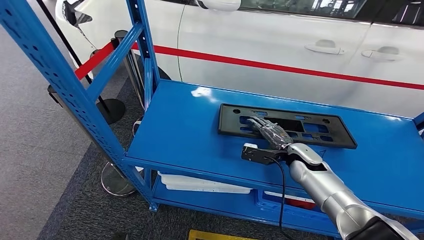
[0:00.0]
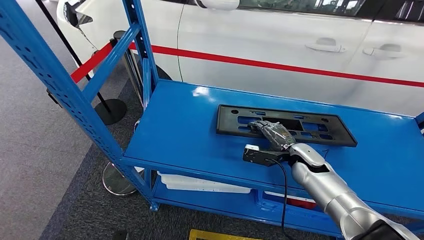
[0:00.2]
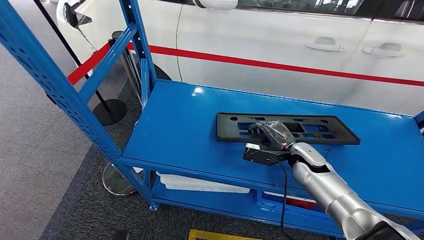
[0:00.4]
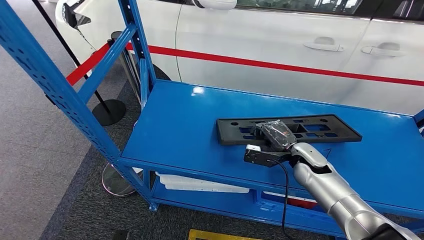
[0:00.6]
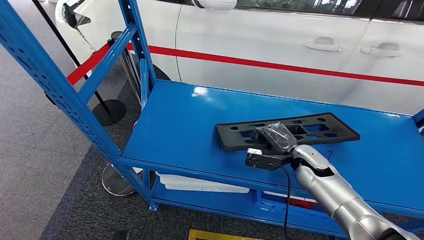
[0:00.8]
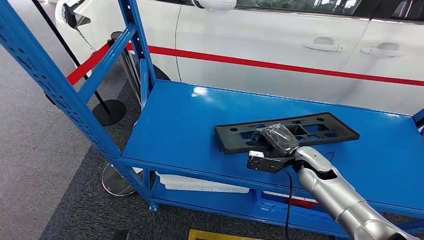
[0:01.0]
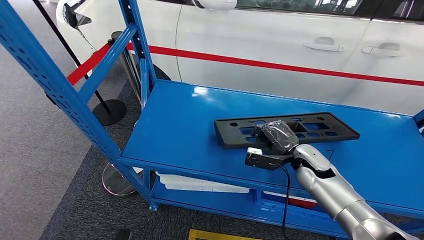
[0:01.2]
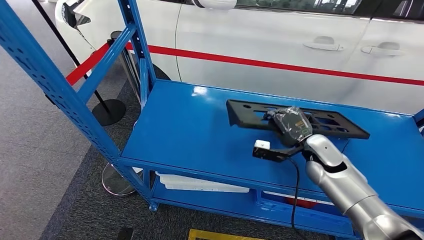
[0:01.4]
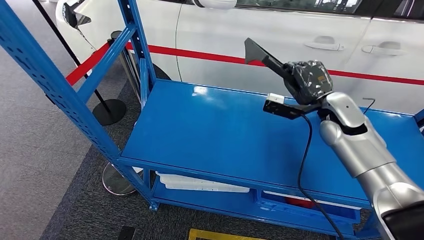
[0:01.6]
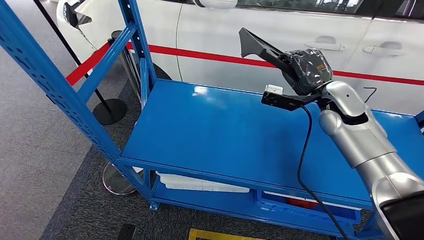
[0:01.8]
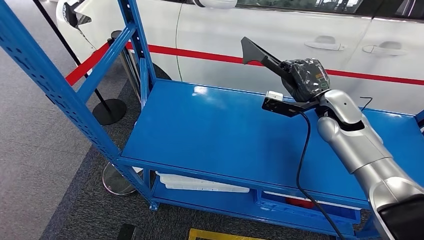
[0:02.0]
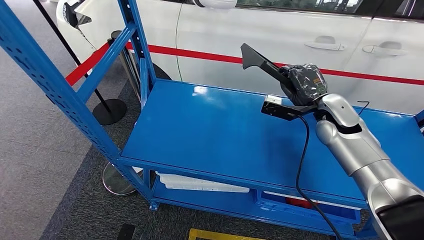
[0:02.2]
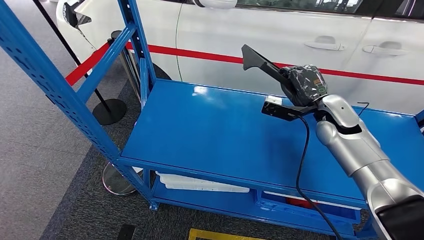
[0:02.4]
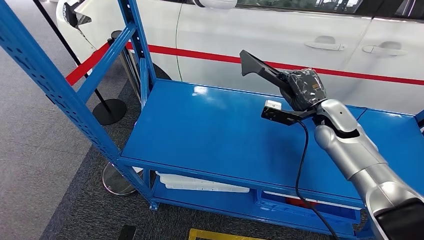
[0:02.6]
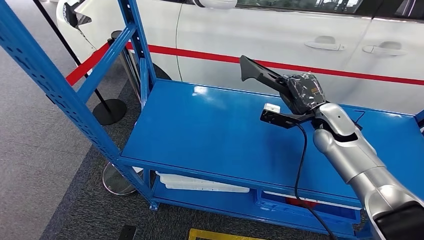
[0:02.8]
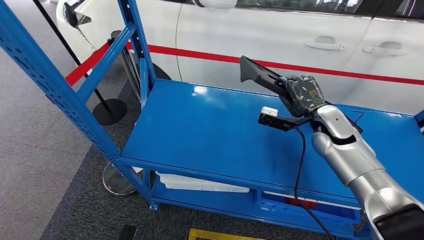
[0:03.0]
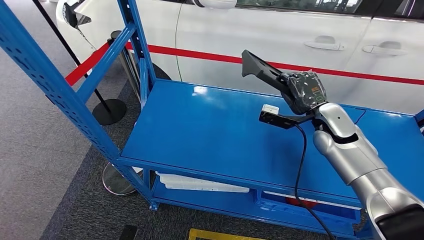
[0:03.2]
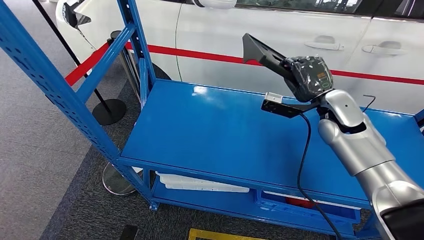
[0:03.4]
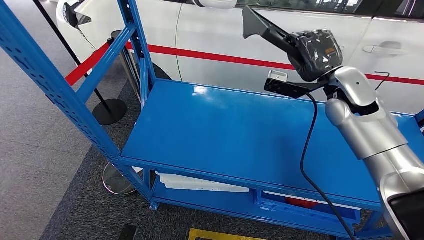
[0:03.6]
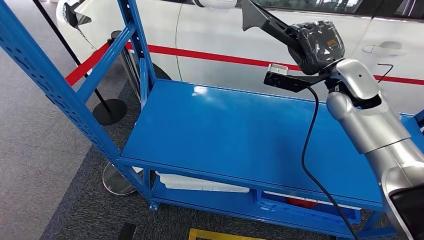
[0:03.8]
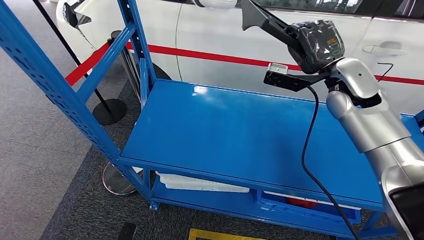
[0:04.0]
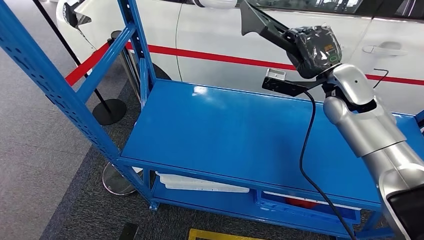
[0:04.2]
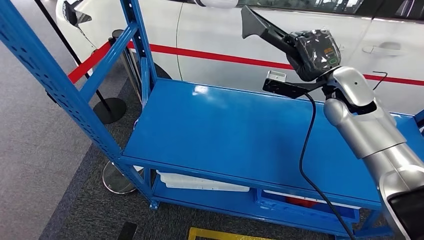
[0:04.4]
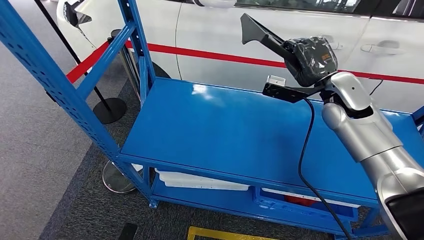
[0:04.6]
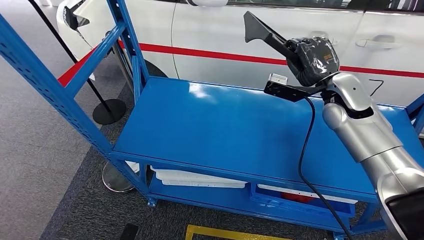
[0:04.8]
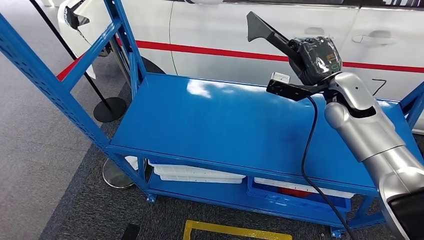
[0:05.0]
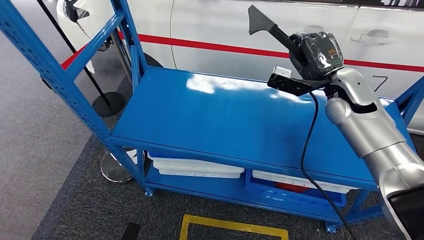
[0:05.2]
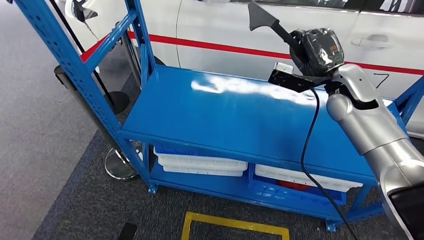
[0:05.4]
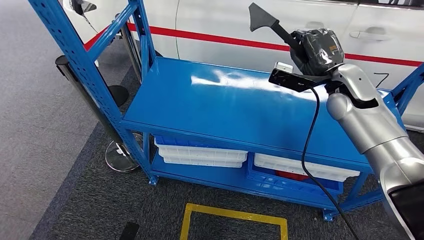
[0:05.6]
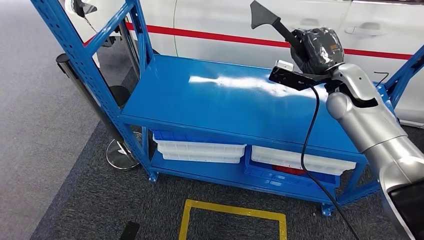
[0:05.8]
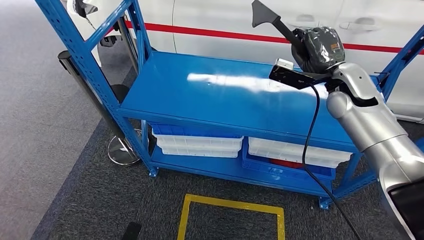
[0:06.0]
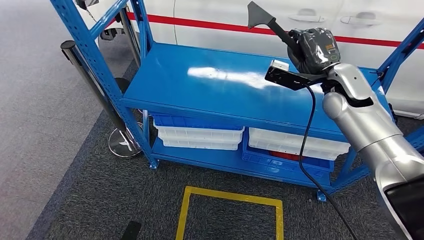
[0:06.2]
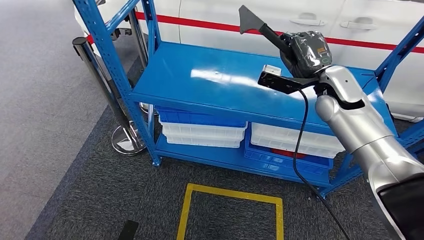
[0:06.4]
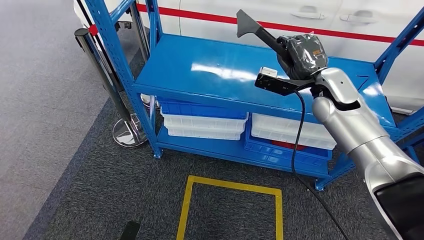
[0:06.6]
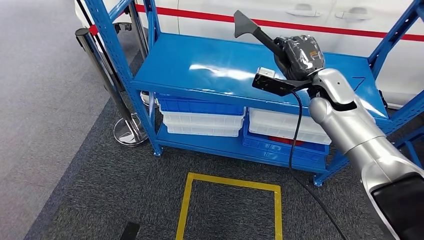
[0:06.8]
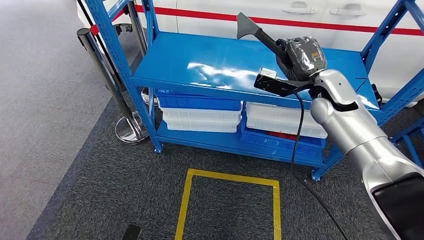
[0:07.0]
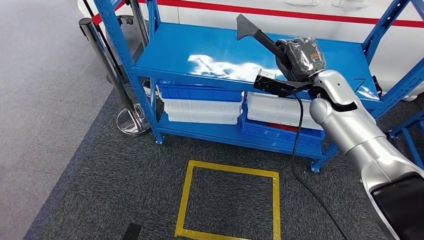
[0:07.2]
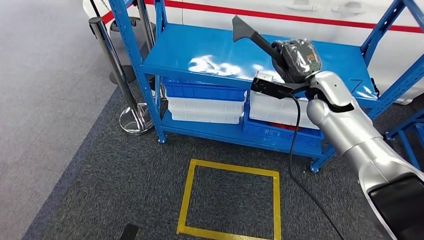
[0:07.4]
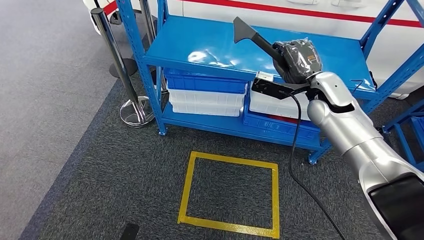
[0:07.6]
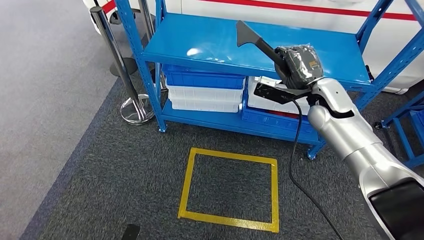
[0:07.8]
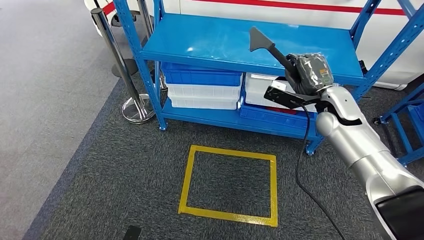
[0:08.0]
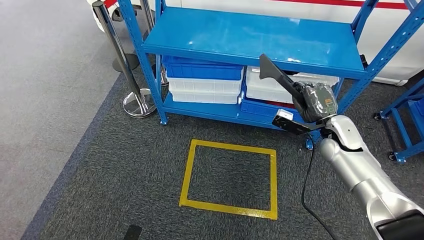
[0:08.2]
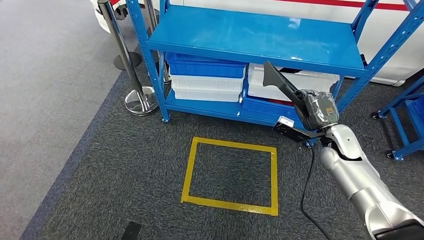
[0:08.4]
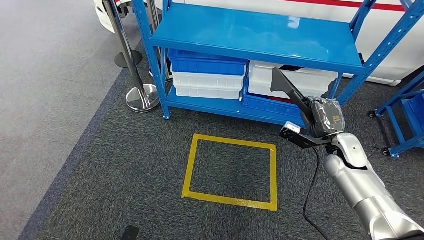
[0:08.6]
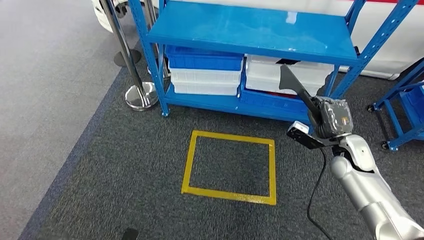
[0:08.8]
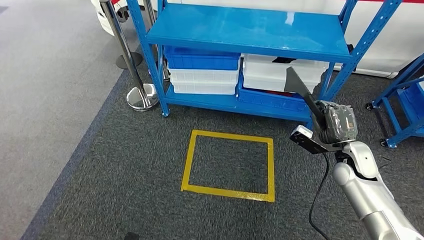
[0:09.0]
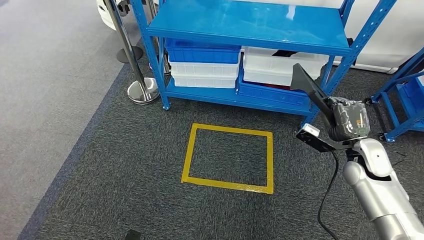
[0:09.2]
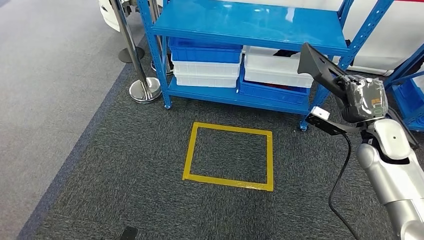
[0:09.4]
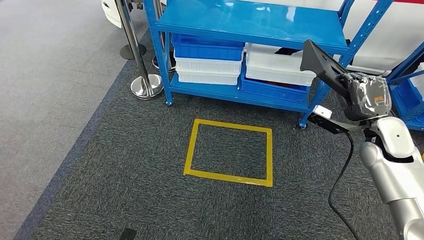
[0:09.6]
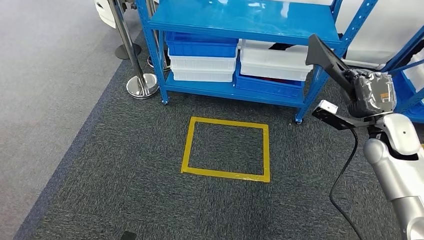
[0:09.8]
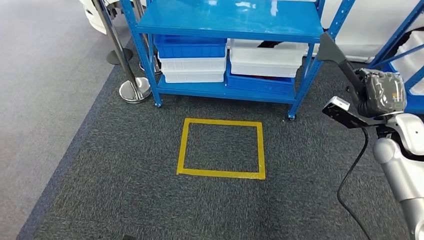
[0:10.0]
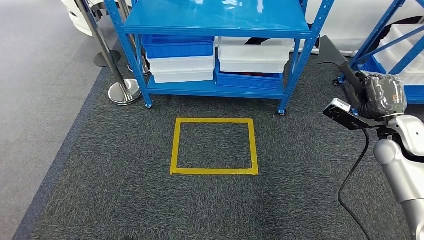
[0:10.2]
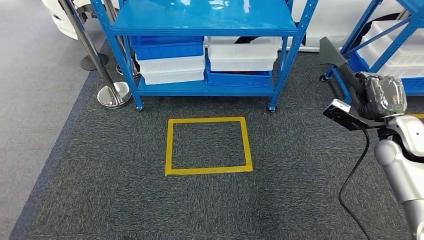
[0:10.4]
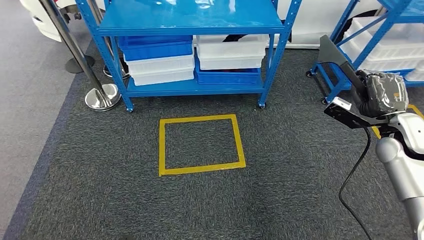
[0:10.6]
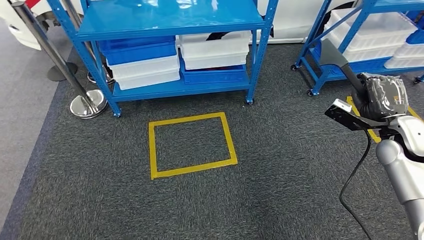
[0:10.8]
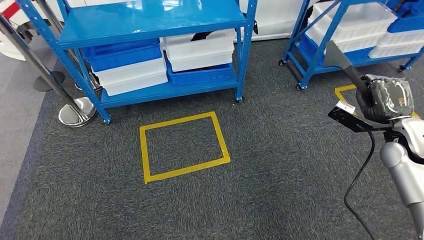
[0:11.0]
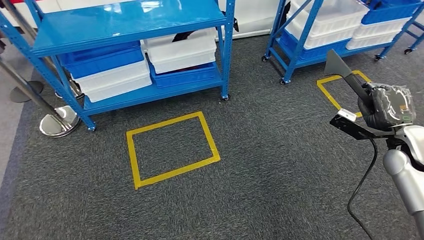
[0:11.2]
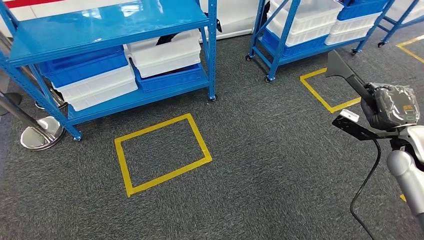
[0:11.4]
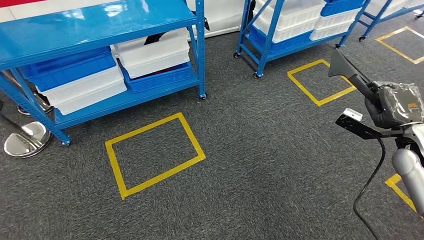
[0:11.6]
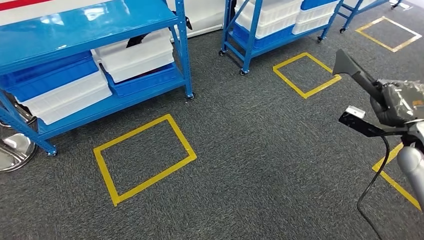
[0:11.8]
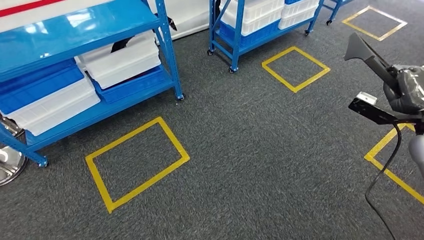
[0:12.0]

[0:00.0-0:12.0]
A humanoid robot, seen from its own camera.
Step, 0:00.0 to 0:02.0: Pick up the large material from the shelf.
0:01.6 to 0:03.0: The hands move only a little.

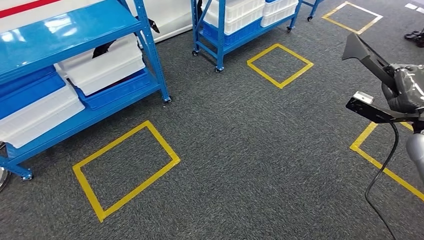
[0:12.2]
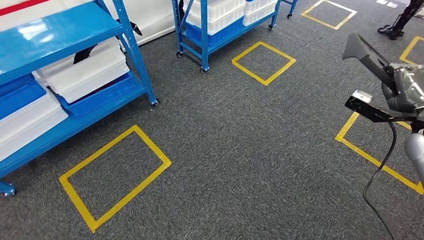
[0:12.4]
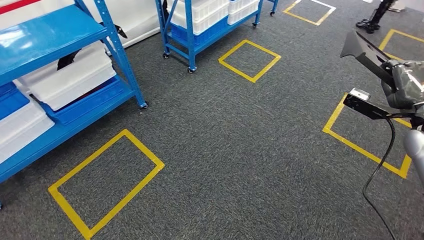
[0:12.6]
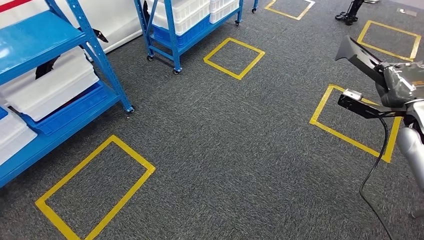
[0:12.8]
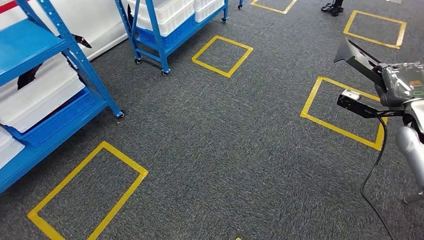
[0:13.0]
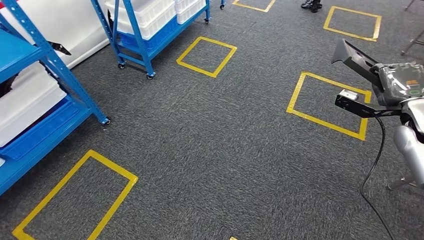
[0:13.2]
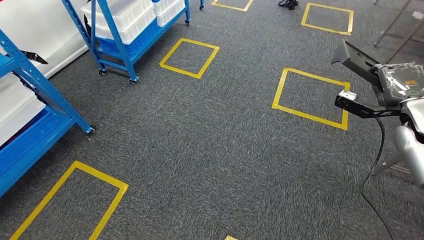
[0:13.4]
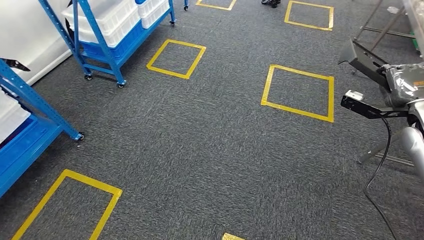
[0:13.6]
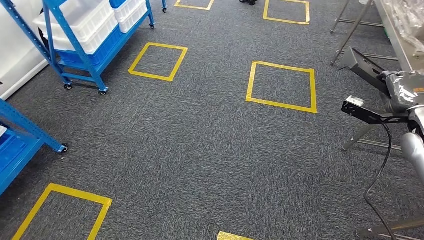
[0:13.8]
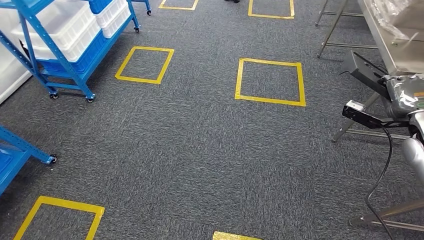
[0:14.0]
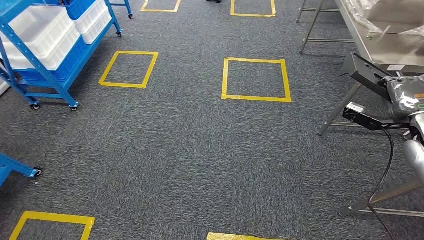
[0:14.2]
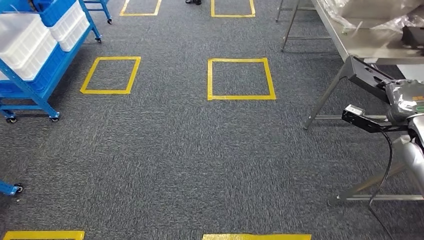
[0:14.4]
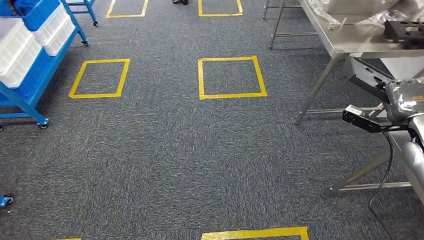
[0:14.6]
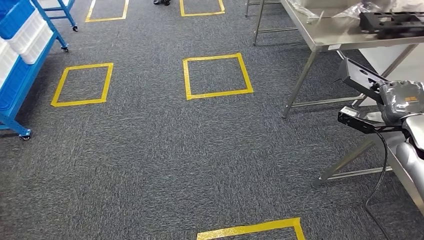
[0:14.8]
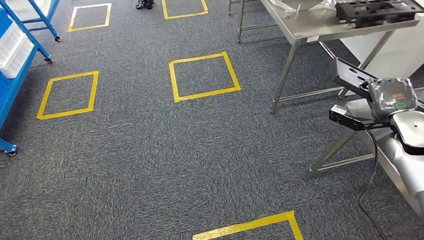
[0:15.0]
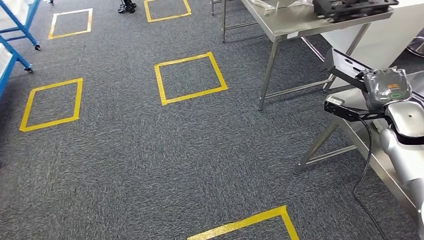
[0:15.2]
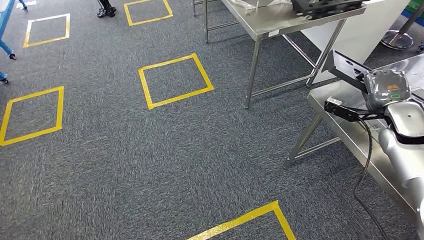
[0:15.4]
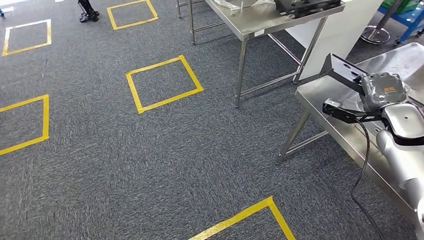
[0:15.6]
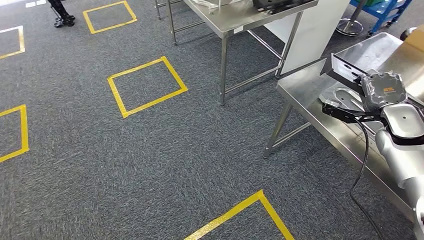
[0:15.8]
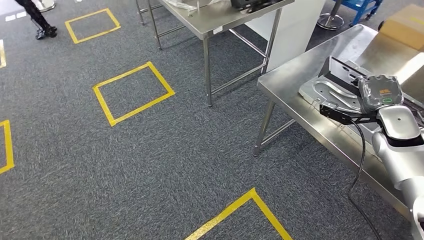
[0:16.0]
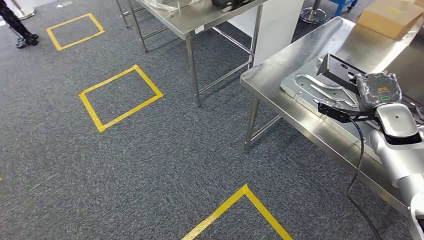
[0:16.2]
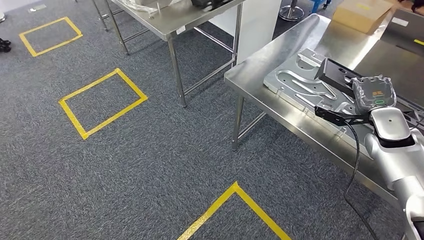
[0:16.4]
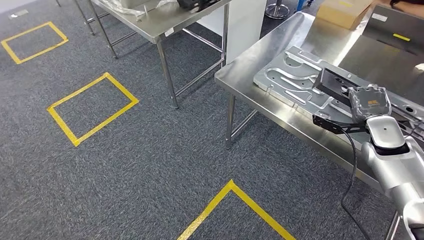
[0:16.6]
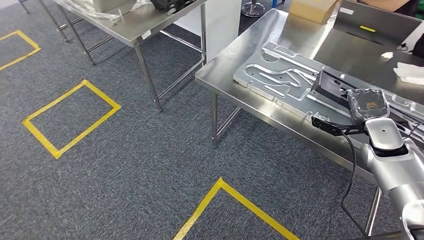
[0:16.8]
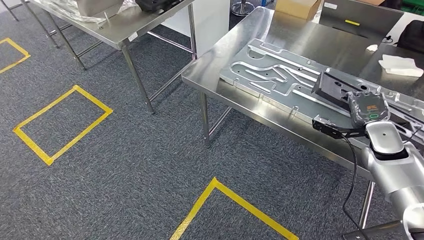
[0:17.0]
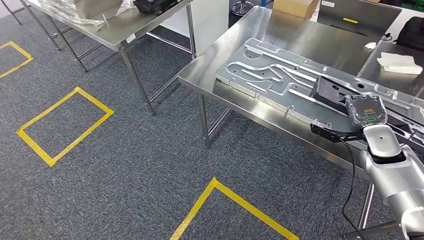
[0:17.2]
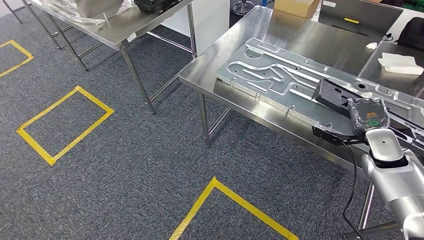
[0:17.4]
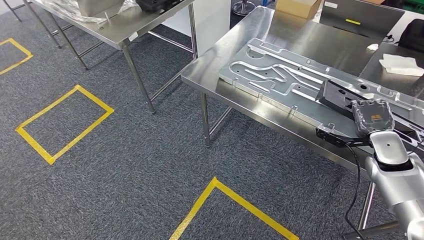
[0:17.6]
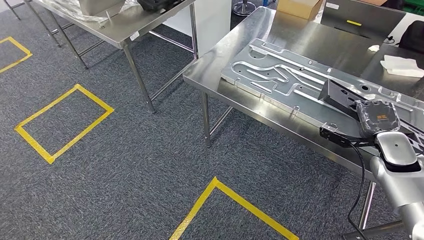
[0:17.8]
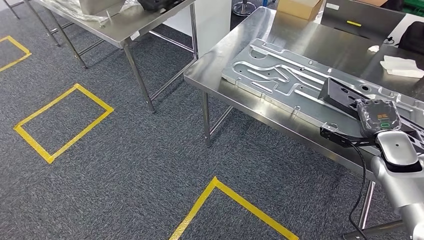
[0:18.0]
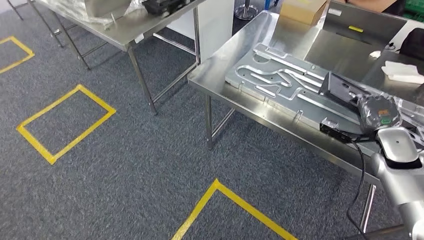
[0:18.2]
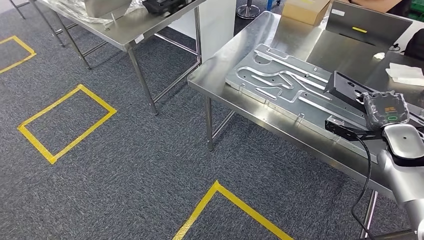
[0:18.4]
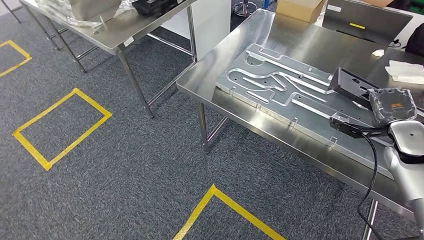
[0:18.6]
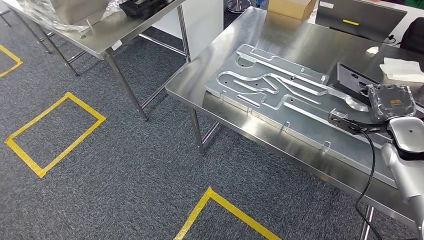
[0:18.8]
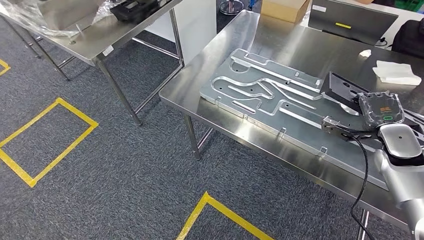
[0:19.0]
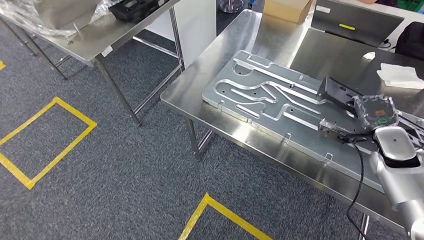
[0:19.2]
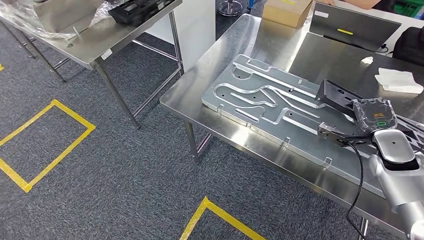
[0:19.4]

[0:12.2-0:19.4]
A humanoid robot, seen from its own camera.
Step, 0:12.2 to 0:19.0: Move the large material to the workbench.
